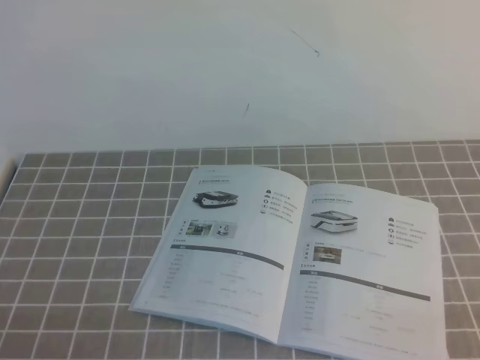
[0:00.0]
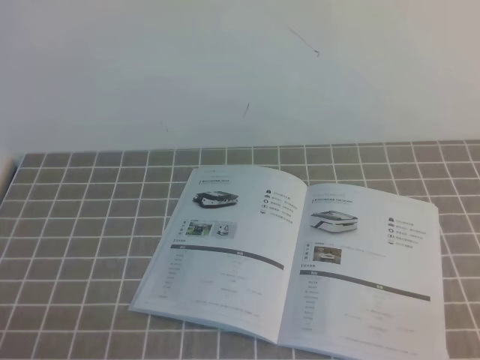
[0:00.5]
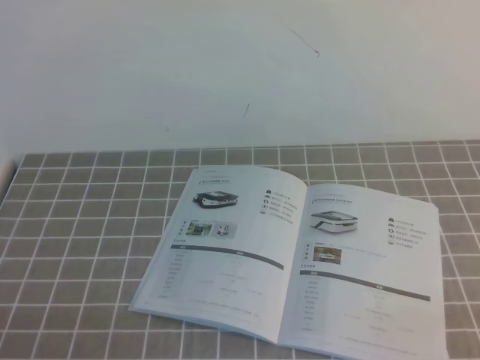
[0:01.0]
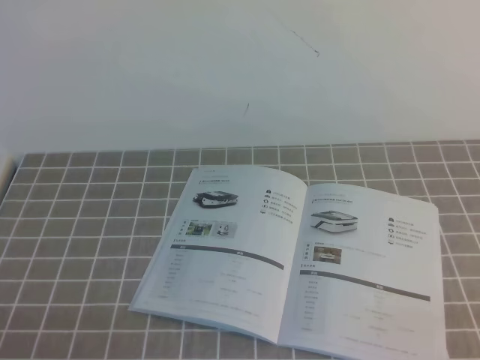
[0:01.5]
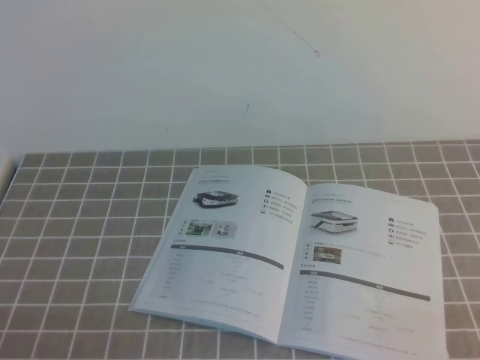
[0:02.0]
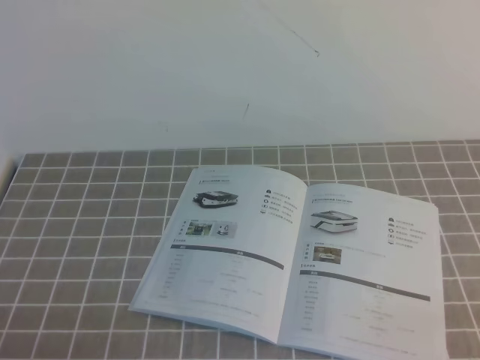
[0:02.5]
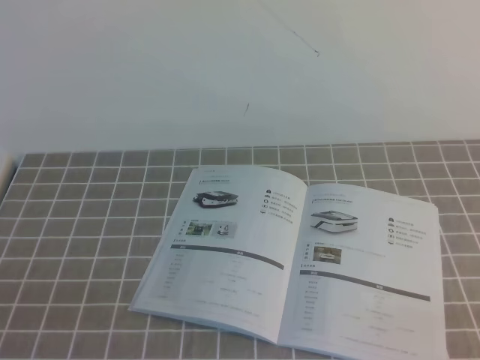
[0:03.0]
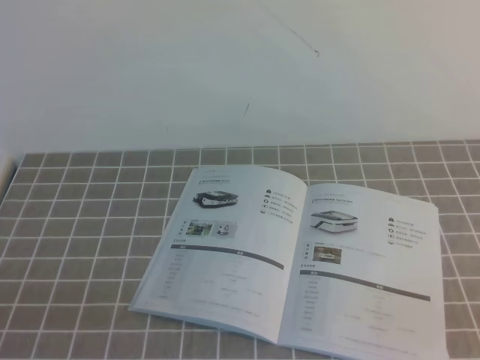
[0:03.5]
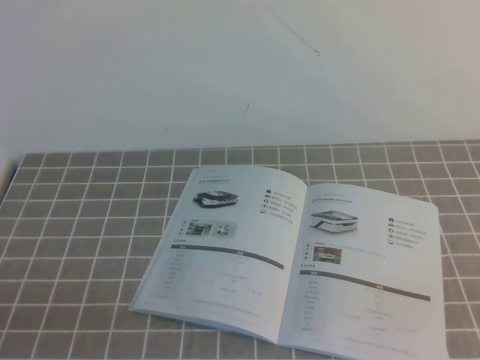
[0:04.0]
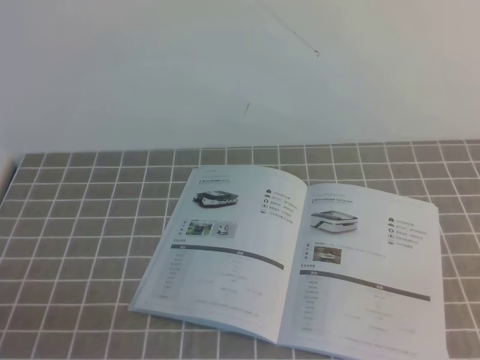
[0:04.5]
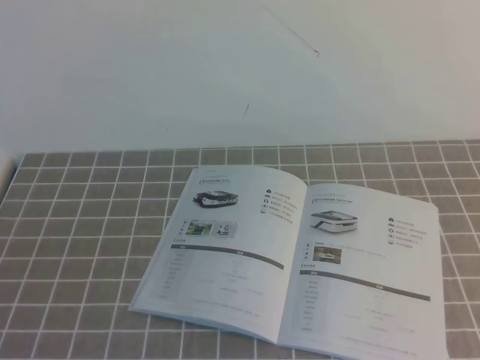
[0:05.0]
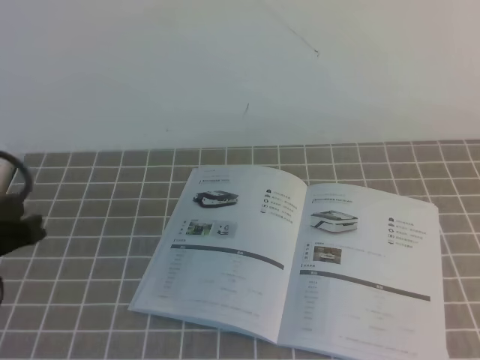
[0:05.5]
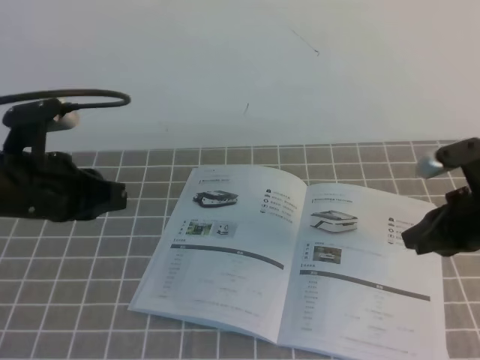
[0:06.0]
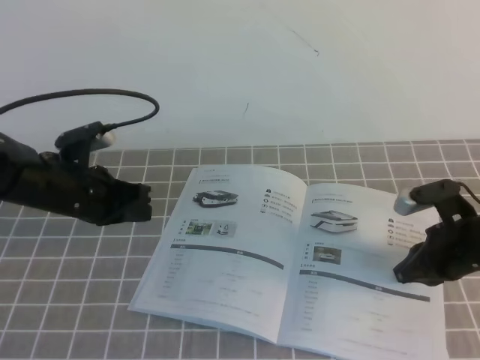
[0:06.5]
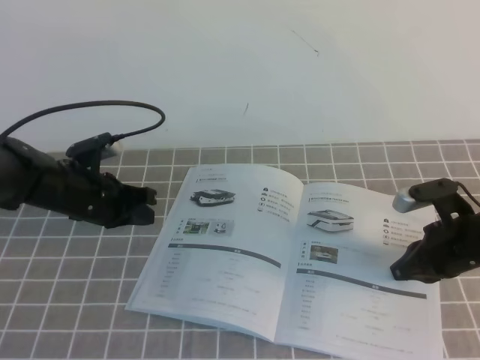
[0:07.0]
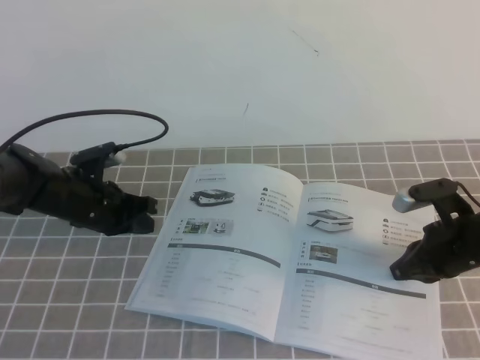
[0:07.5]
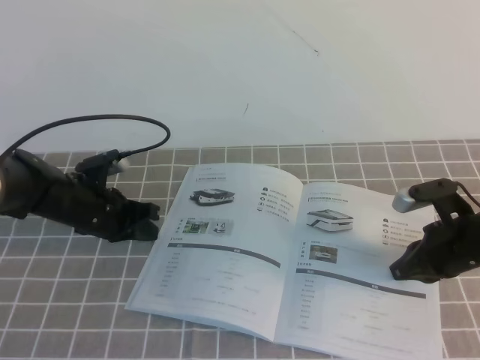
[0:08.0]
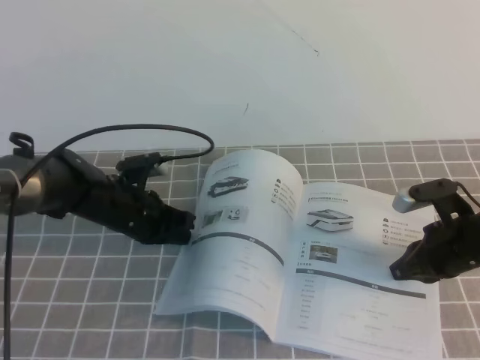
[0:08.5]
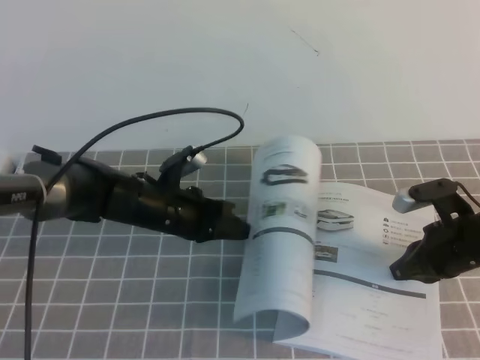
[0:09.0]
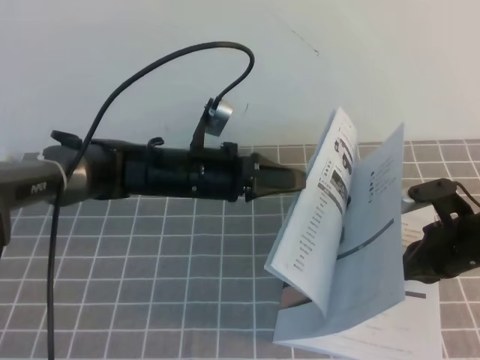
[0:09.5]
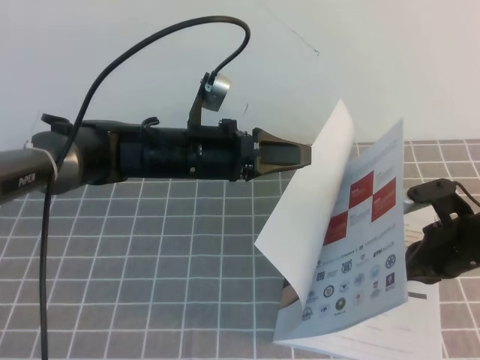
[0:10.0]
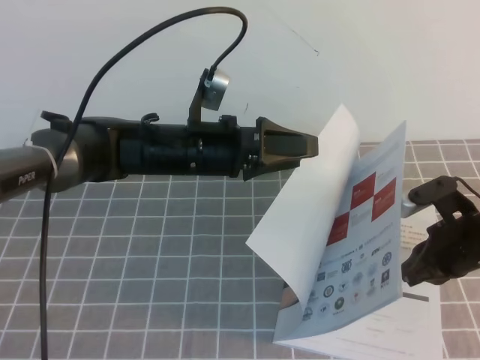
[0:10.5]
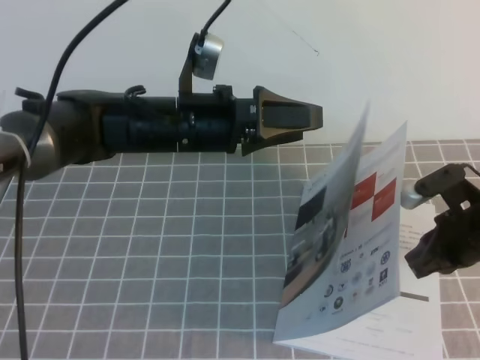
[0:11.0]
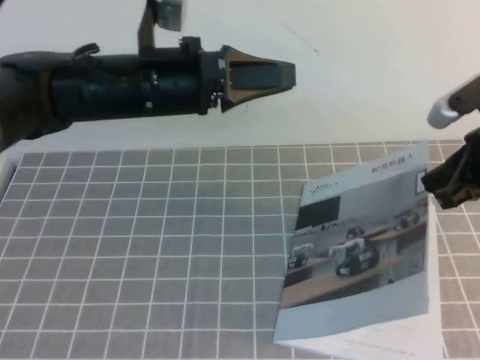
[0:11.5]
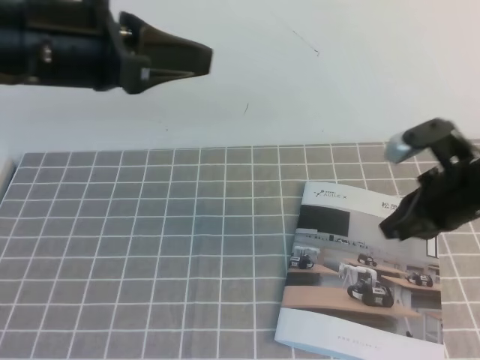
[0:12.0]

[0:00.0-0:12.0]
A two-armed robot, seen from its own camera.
Task of the whole recording: on the grey tablecloth, hold the book with one hand and close it with the other.
0:00.0 to 0:02.0: Both grippers stay put.
0:04.0 to 0:06.0: Both grippers move forward, about 25 cm.
0:06.0 to 0:08.0: The right gripper shifts roughly 10 cm downward; the left gripper is displaced downward and forward by about 20 cm.
0:08.0 to 0:10.0: The left gripper travels to the right and upward by about 15 cm.
0:10.0 to 0:12.0: The left gripper is displaced upward, backward and to the left by roughly 20 cm, and opens and closes again. The right gripper shifts about 10 cm upward.

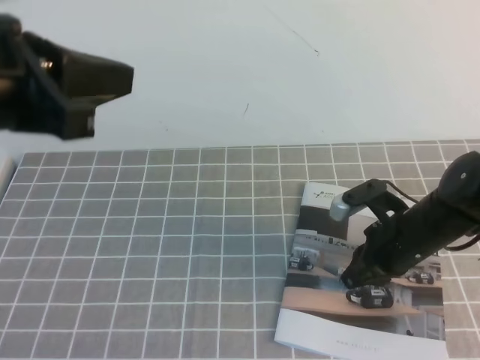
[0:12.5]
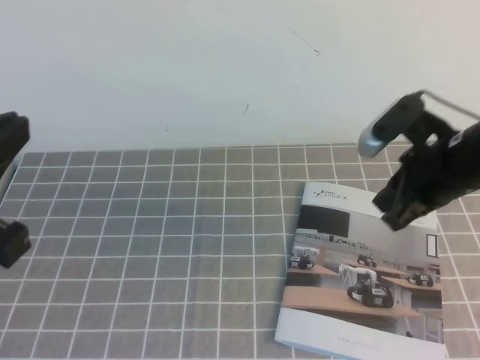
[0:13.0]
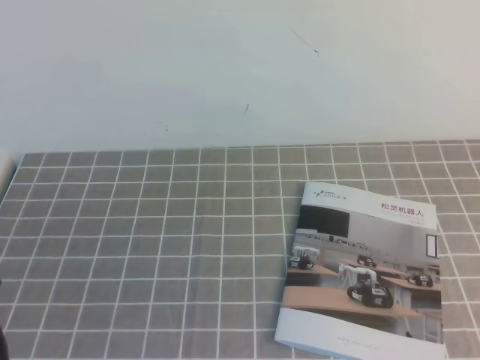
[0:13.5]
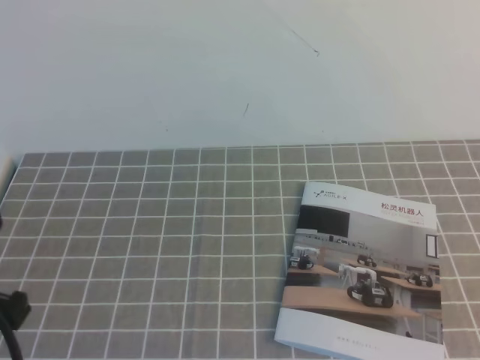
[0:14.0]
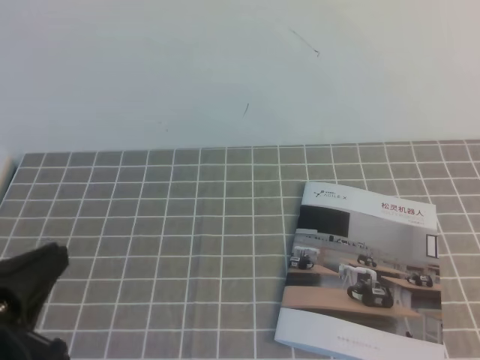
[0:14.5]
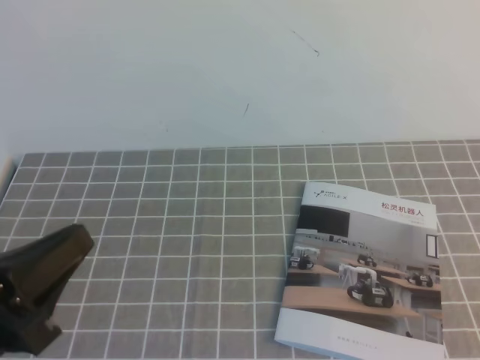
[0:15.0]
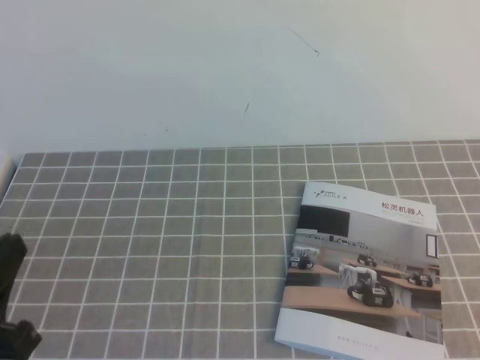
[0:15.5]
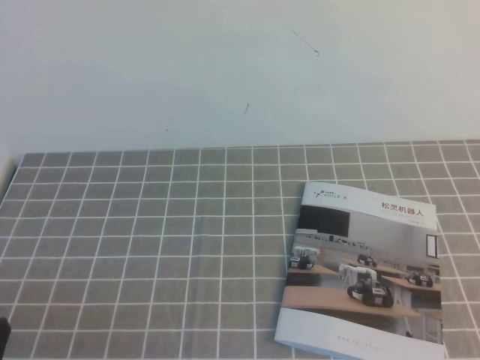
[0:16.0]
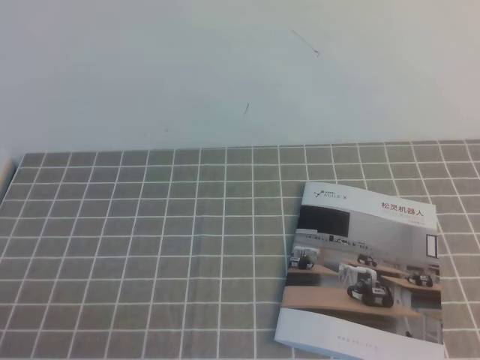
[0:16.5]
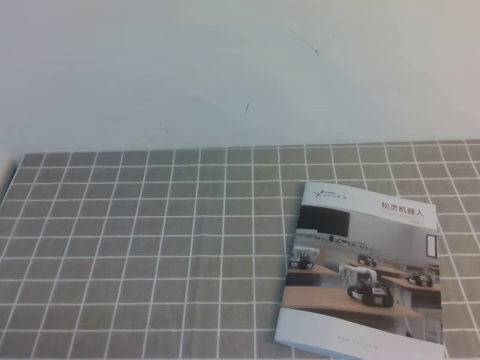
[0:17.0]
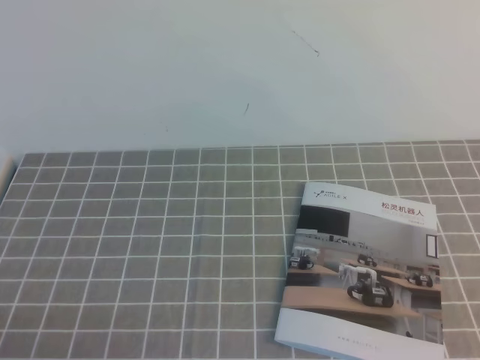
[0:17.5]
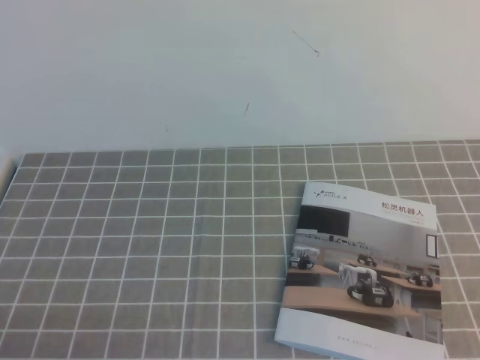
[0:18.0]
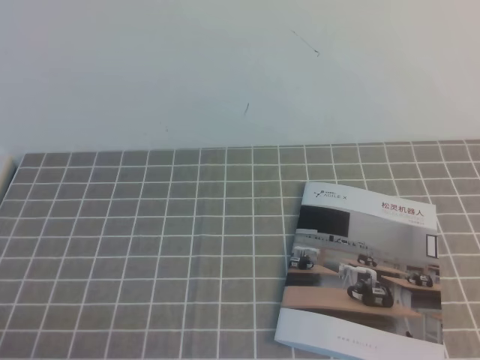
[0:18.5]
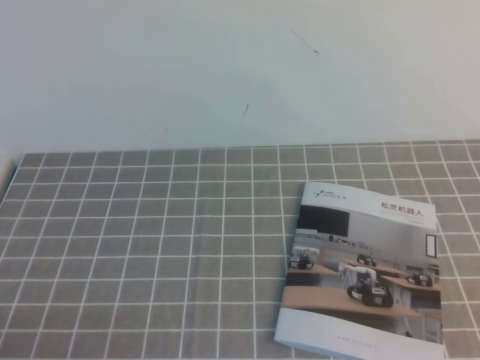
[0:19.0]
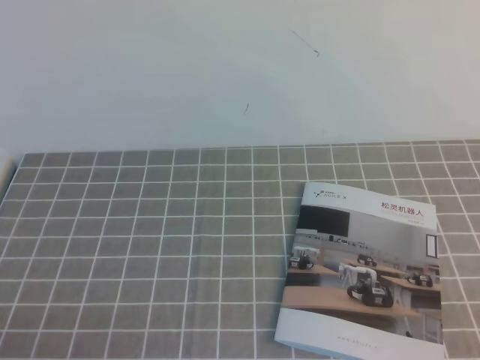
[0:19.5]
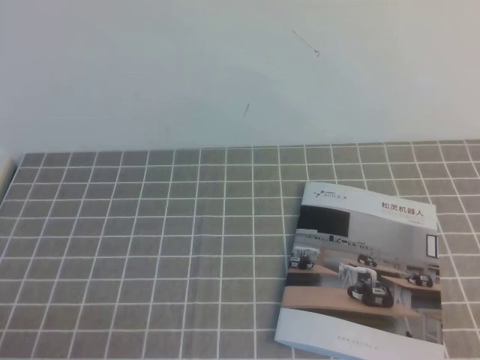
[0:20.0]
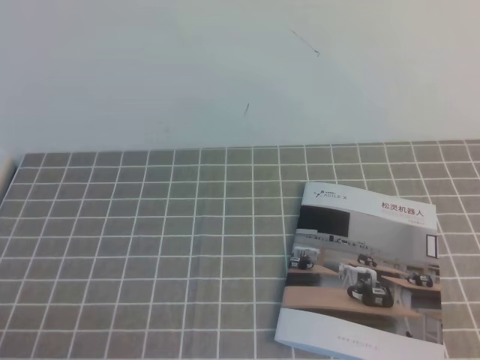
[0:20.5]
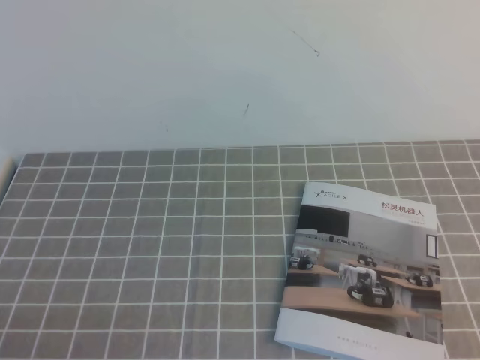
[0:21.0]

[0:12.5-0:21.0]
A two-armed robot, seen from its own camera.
Task of the whole recording: on the grey tablecloth, hold the book with one hand and close it with the other.
Step, 0:12.5 to 0:21.0: Close the open book.
0:12.5 to 0:14.5: The left gripper shifts some 20 cm downward and backward; the right gripper moves backward, upward and to the right, roughly 30 cm.
0:14.5 to 0:16.5: The left gripper moves downward and backward, roughly 10 cm.

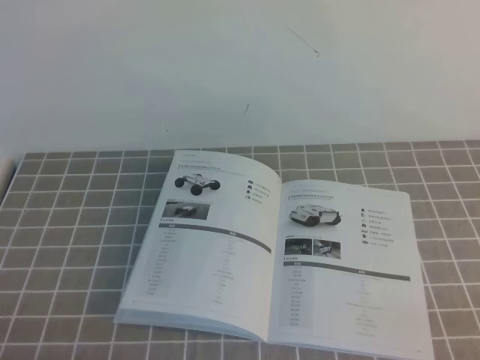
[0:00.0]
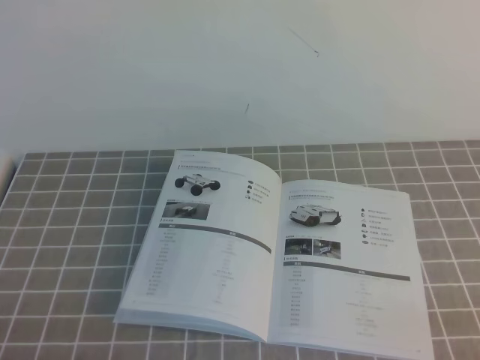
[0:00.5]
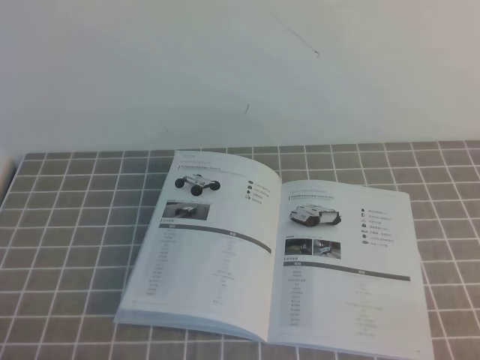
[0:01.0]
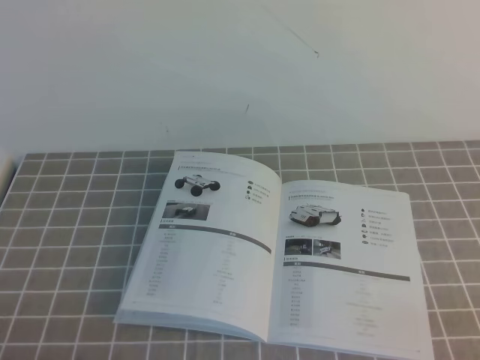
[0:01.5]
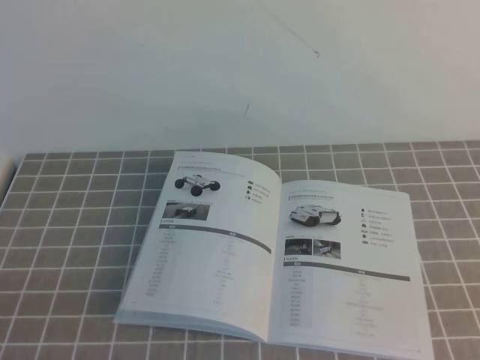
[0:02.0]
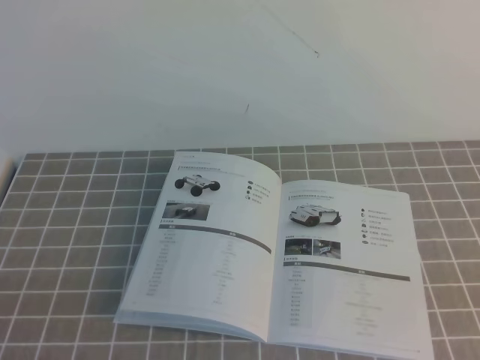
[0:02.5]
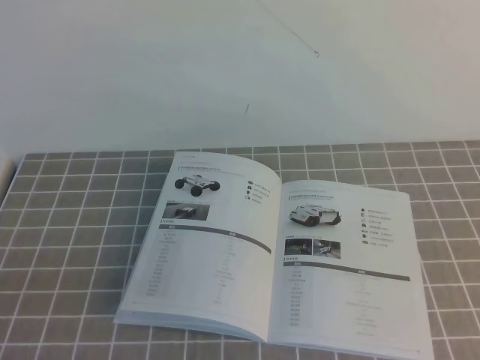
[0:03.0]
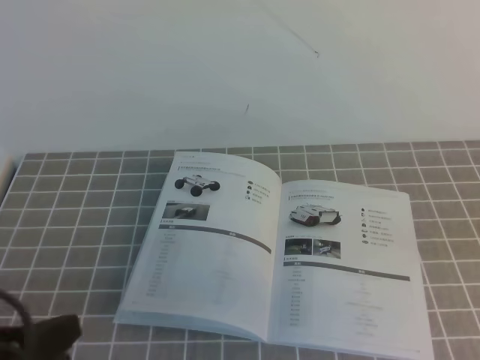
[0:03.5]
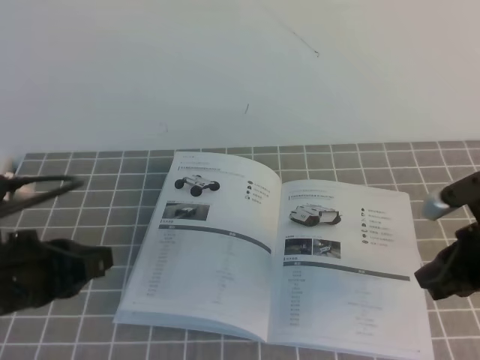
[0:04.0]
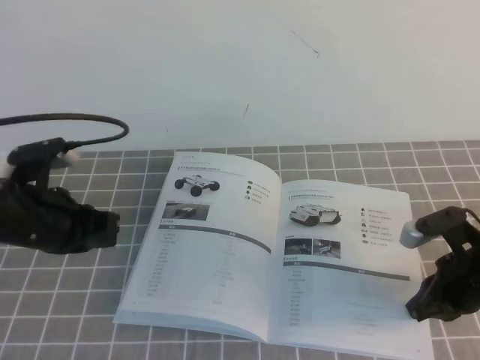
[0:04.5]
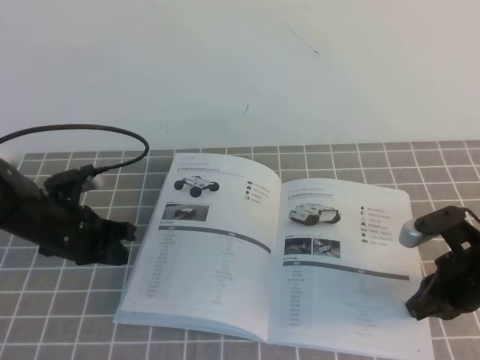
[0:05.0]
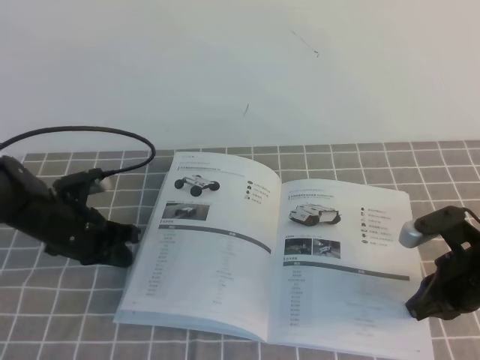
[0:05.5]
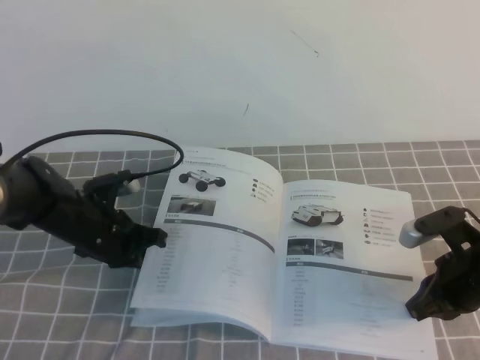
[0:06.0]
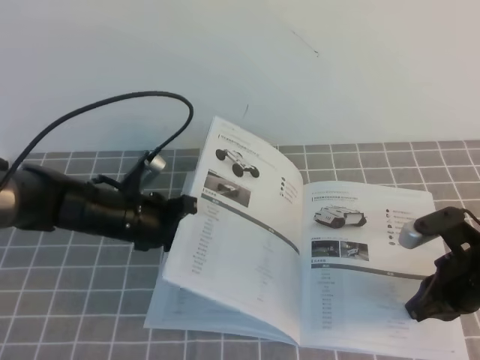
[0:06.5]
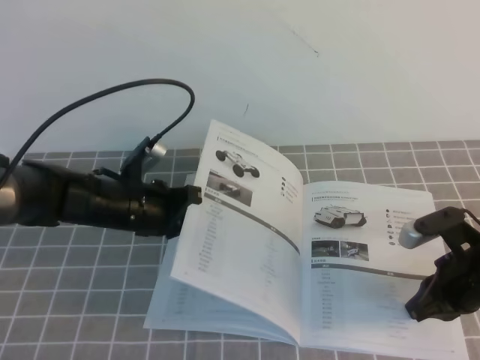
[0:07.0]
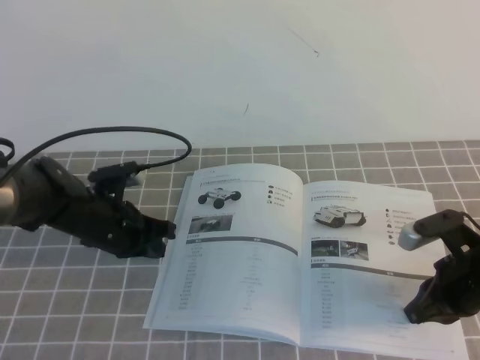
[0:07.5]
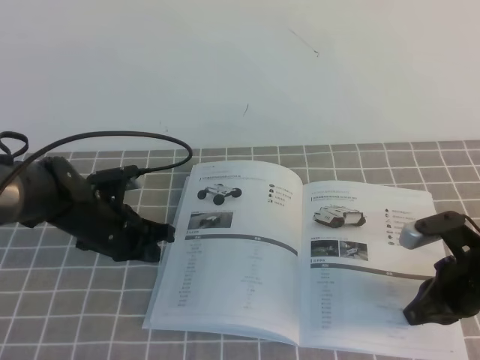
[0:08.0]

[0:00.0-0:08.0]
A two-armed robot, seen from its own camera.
Task of the whole recording: on the grey tablecloth, hold the book with one hand and close it with the other.
0:02.0 to 0:04.0: The right gripper goes some 20 cm forward. The left gripper goes roughly 15 cm forward.
0:04.0 to 0:06.0: The left gripper shifts roughly 20 cm forward and downward, while the right gripper is displaced downward by some 5 cm.
